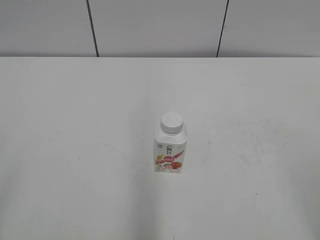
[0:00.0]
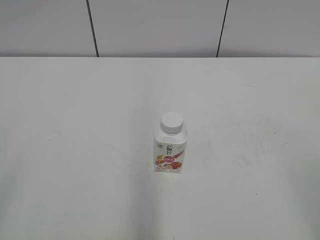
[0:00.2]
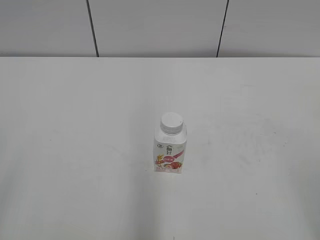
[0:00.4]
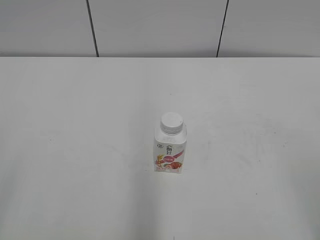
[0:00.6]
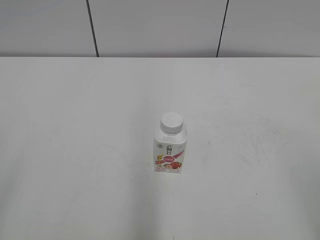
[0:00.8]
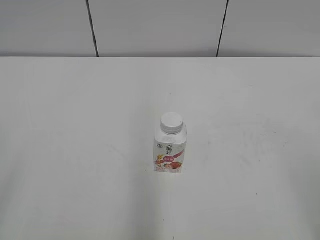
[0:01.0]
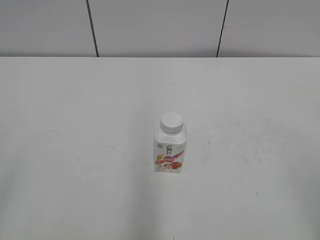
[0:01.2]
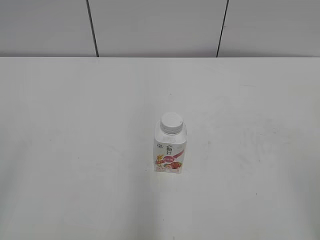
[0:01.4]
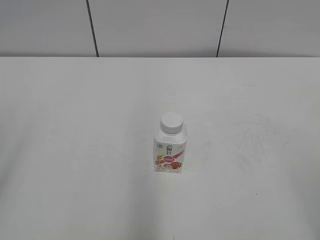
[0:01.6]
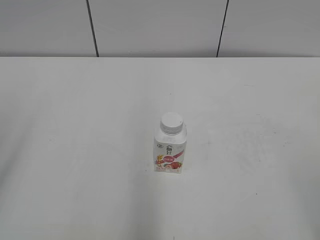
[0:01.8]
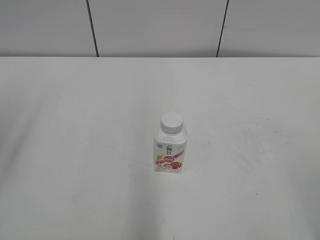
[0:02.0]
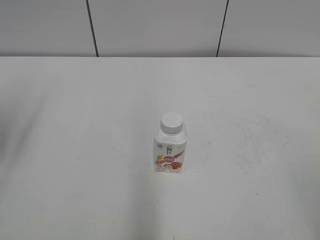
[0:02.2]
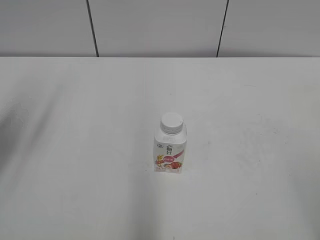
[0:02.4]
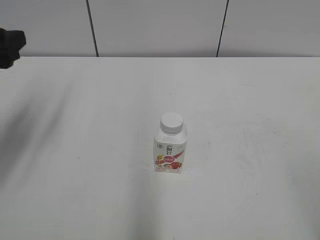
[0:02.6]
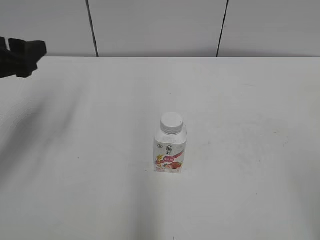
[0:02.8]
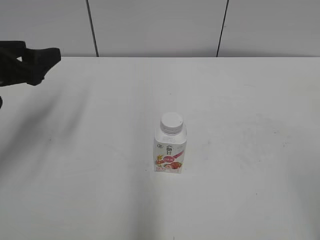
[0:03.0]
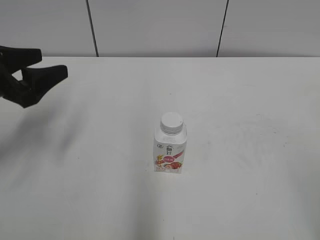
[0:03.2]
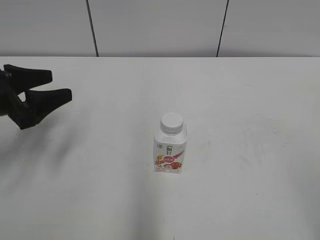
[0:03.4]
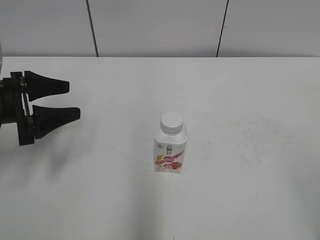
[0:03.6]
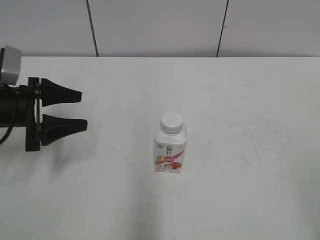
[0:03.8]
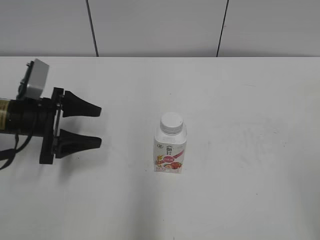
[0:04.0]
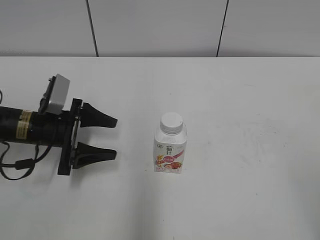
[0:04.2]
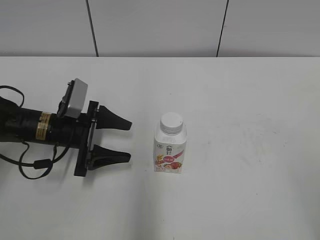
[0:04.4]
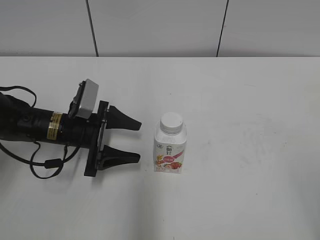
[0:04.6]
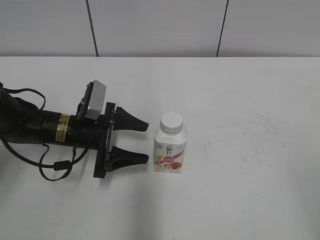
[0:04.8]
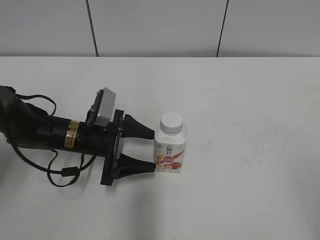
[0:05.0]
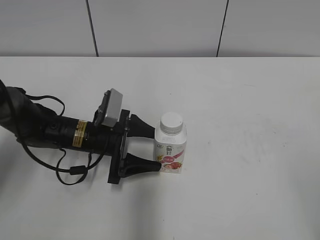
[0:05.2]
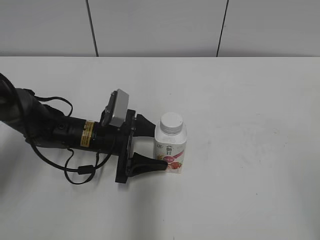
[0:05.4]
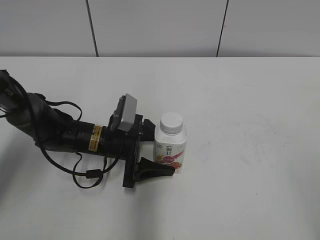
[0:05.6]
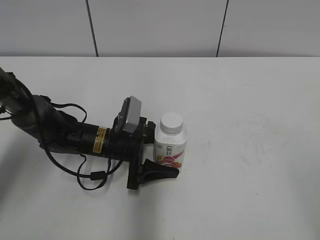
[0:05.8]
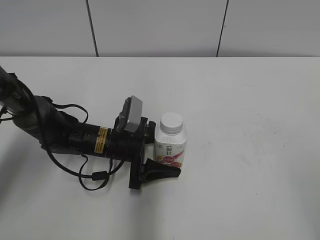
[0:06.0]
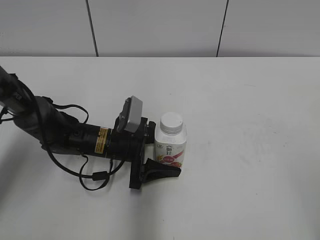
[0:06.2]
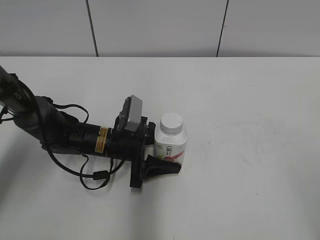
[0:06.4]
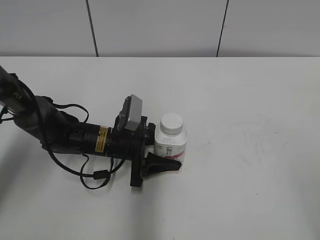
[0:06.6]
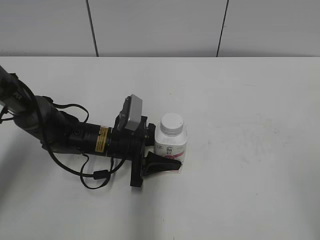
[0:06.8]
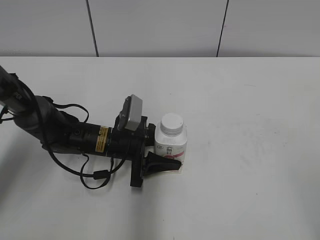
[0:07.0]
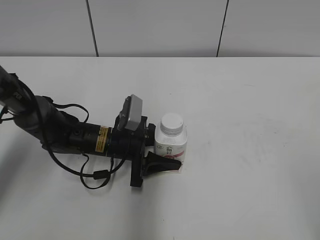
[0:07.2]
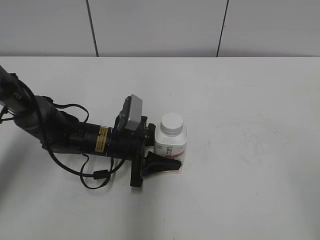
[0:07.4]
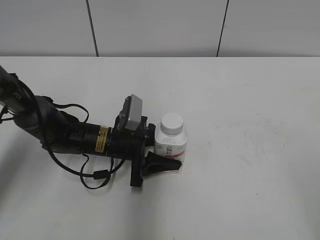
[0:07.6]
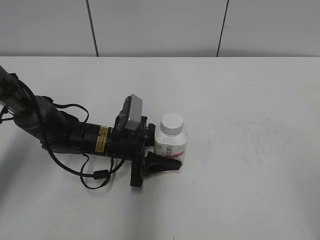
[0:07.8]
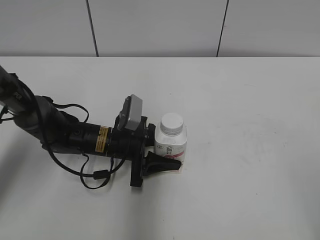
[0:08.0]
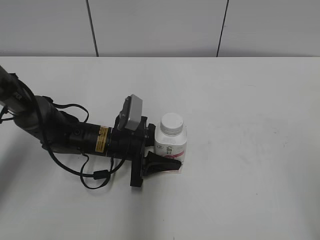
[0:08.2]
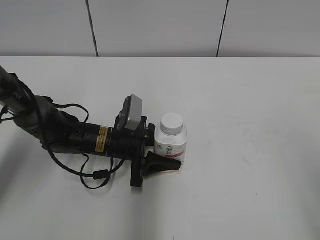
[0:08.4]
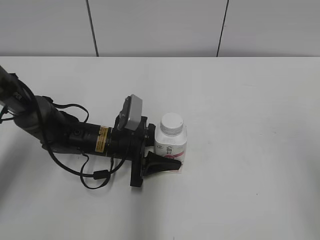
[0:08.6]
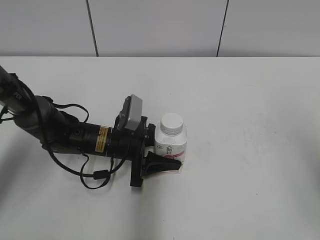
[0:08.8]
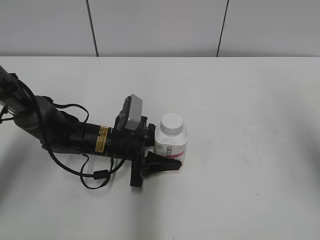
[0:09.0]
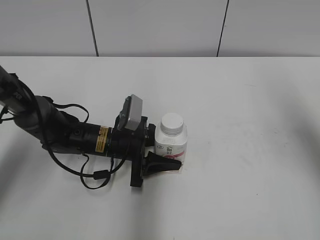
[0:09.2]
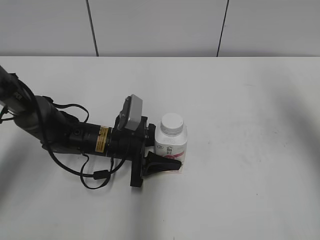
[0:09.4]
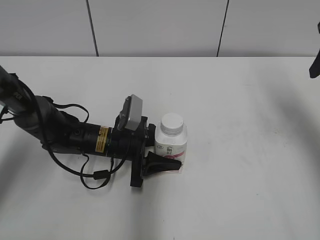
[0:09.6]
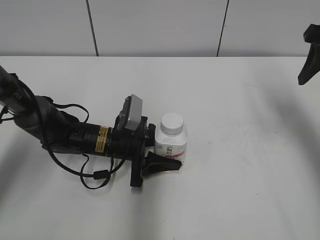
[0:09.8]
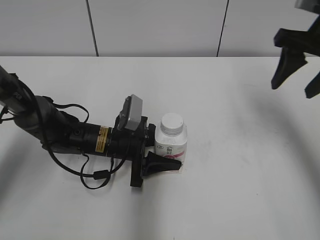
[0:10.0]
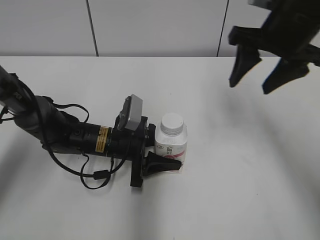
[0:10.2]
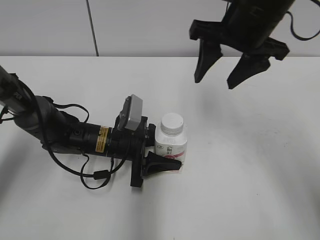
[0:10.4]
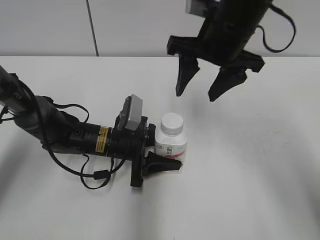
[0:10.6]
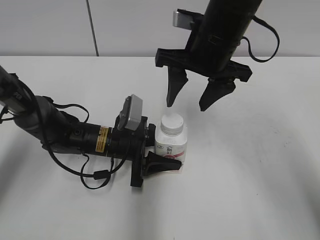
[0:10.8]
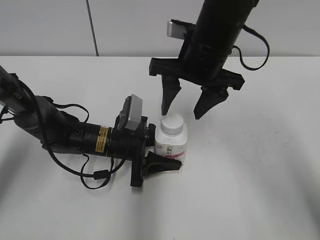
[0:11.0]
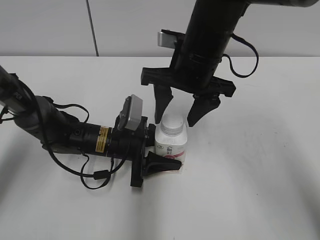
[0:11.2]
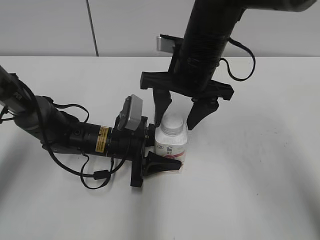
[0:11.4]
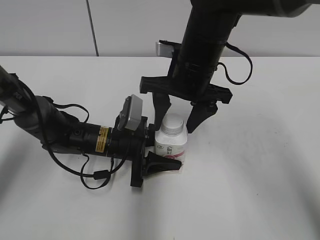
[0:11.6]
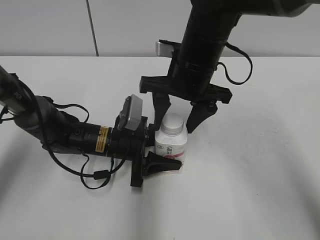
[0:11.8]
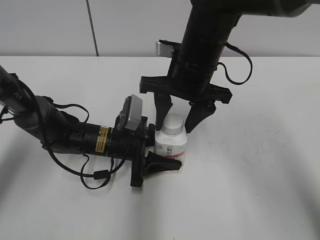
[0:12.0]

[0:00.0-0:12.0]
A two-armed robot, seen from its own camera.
Step, 0:00.0 to 0:07.0: Grab the Yili Changqing with the left hand.
0:01.6 to 0:03.0: The left gripper is displaced forward by approximately 25 cm.
0:03.0 to 0:04.4: The left gripper travels downward and to the right by about 15 cm.
0:04.4 to 0:06.0: The left gripper travels to the right by roughly 10 cm.
0:06.0 to 0:07.6: The left gripper closes.
0:07.6 to 0:09.0: The right gripper is displaced forward by approximately 15 cm.
0:09.0 to 0:10.4: The right gripper travels forward and to the left by roughly 25 cm.
0:10.4 to 0:12.0: The right gripper is displaced to the left and downward by approximately 10 cm.

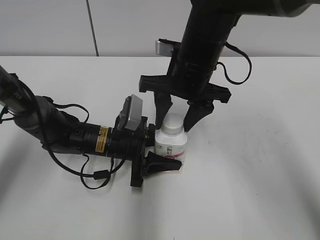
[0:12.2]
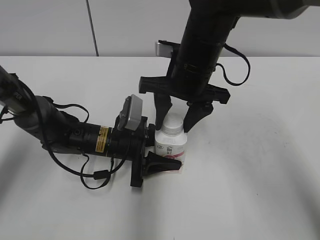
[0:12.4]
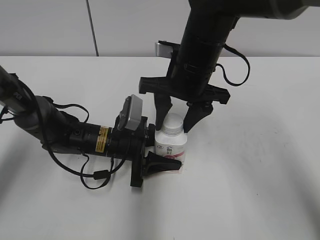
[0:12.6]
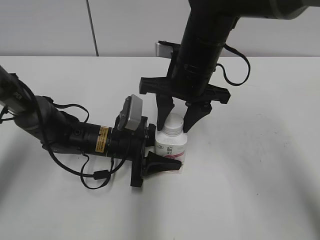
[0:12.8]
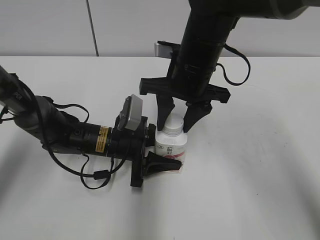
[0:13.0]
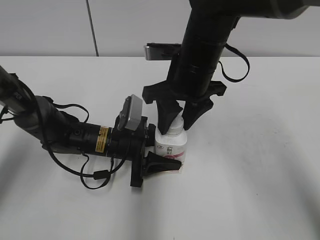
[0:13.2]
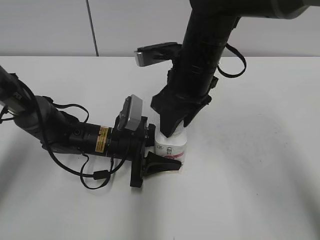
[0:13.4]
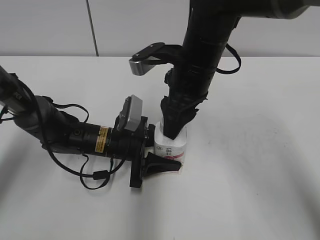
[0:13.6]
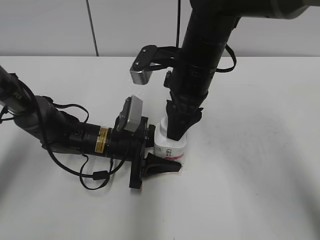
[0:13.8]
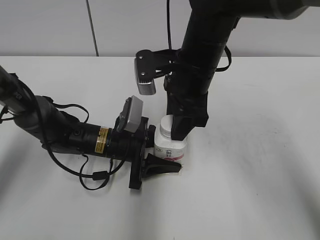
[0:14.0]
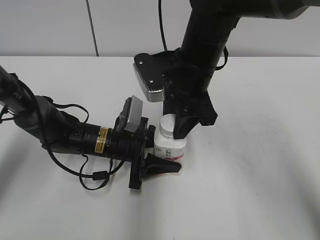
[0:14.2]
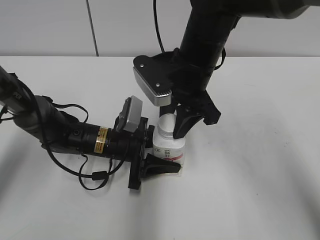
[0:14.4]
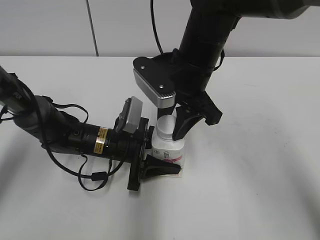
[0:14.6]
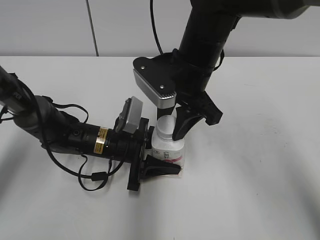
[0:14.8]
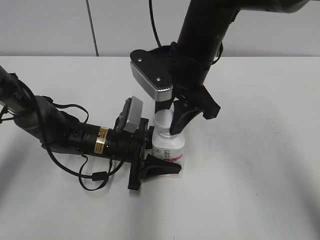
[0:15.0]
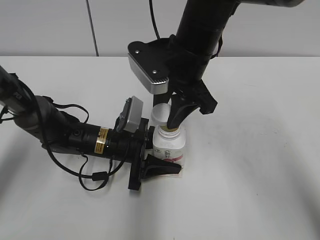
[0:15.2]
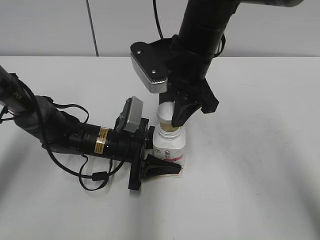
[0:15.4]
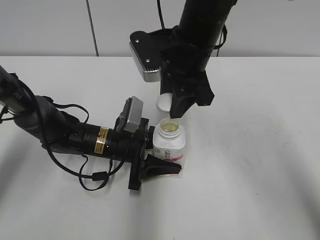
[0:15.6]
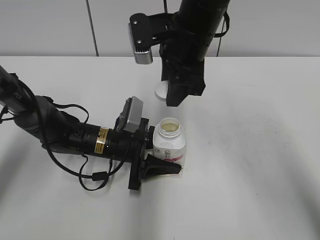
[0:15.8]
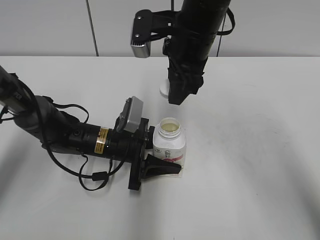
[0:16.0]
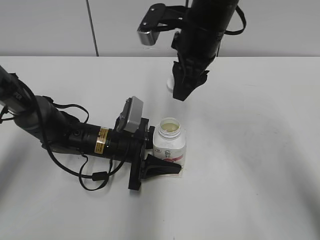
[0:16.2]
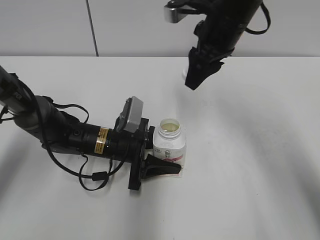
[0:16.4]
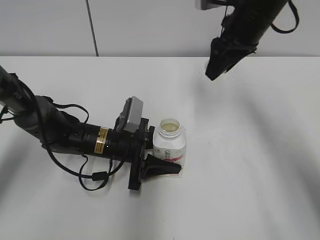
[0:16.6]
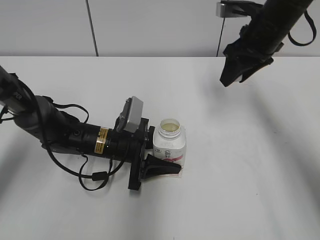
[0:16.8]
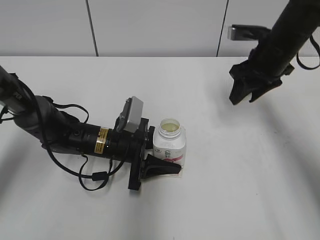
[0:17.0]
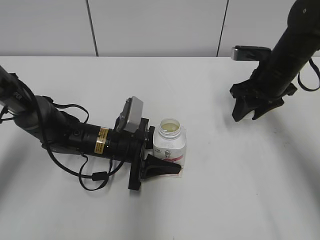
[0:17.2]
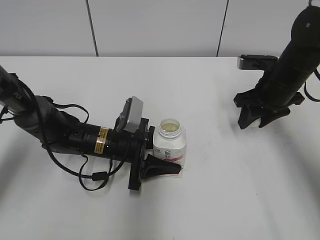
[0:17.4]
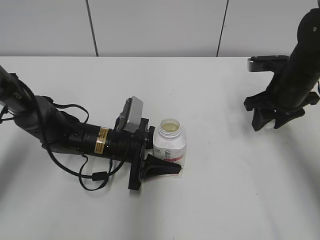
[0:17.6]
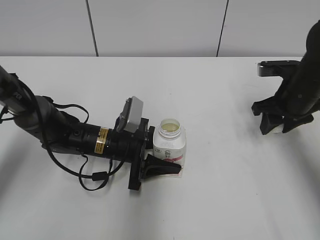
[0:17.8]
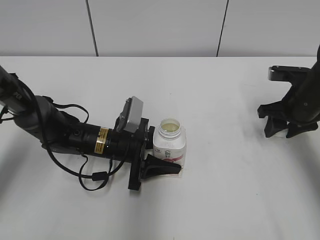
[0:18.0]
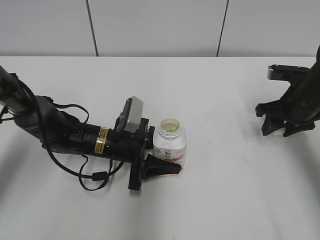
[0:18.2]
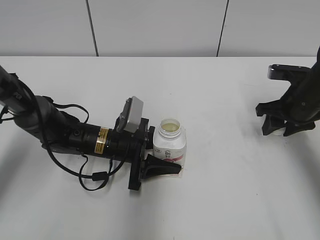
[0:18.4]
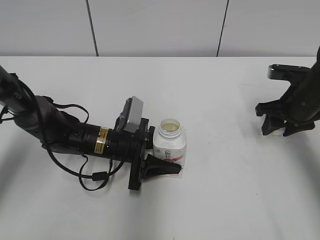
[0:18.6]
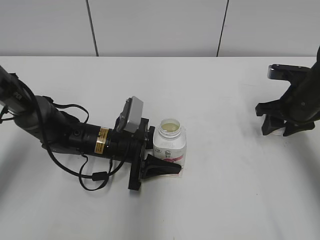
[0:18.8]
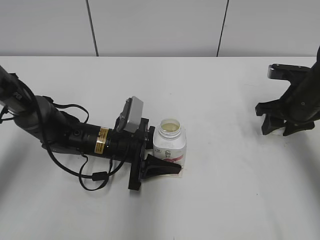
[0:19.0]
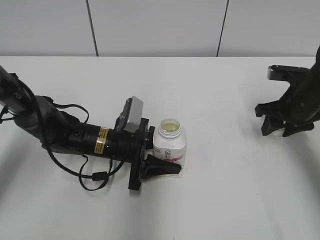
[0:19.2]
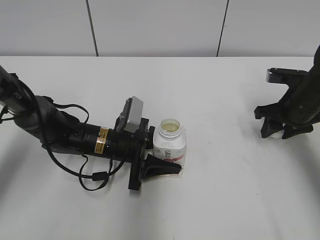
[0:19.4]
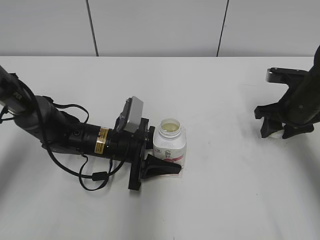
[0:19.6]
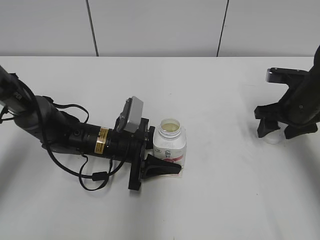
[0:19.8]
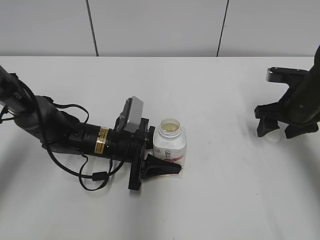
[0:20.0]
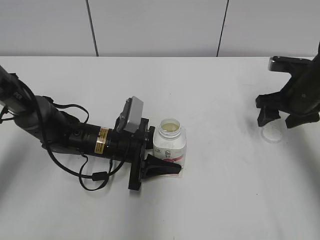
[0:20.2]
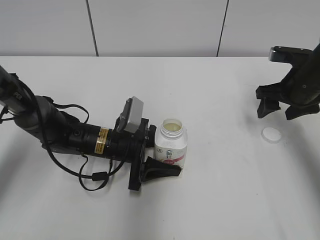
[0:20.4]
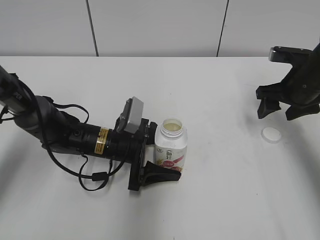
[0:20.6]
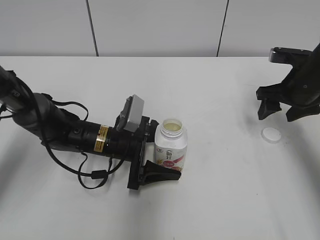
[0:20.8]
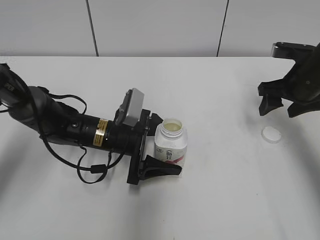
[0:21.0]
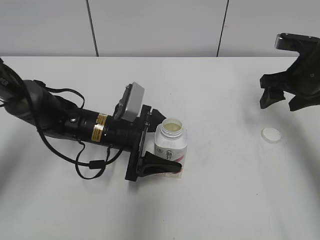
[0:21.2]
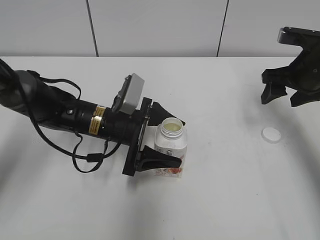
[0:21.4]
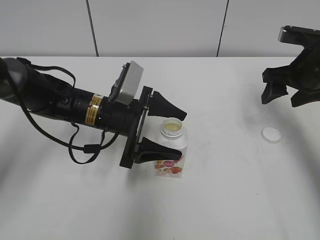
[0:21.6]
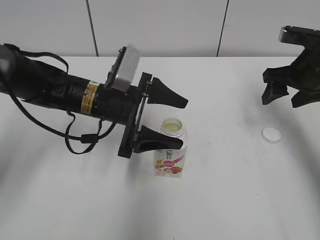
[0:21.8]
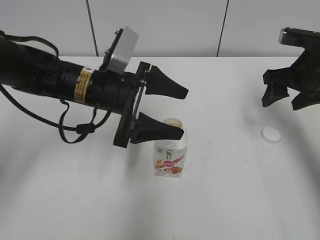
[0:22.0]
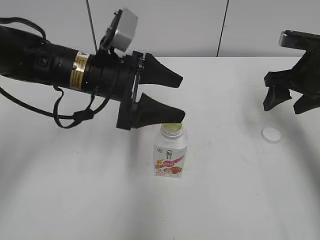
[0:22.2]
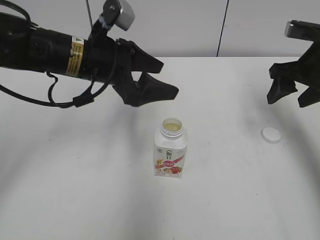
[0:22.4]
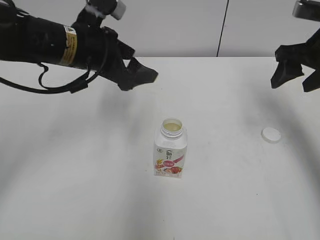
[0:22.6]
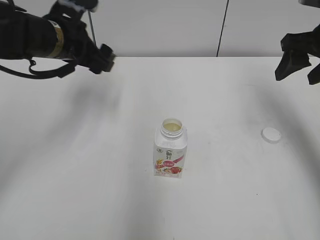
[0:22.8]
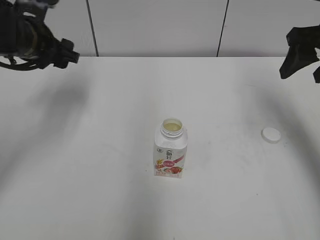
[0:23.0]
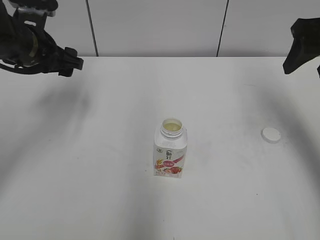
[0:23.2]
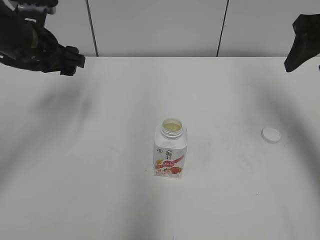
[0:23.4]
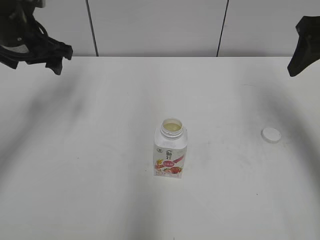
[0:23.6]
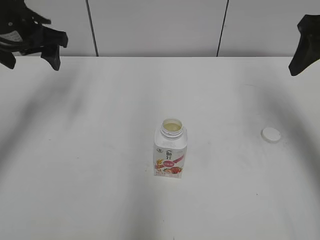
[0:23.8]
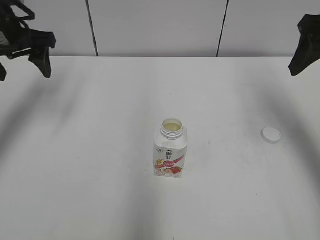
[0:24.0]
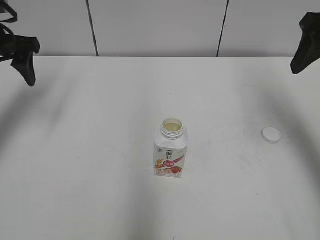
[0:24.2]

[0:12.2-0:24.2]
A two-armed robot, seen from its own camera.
Step, 0:15.6 to 0:19.6: Place the bottle cap on the right.
Step, 0:20.0 to 0:21.2: Place the Yili Changqing with the left hand.
0:15.2 to 0:16.6: The right gripper is displaced to the right and forward by about 10 cm.
0:16.6 to 0:18.2: The right gripper heads to the right and downward, covering roughly 20 cm.
0:18.2 to 0:19.8: The right gripper opens up.
0:19.8 to 0:21.2: The right gripper moves upward, roughly 5 cm. The left gripper opens.
0:21.2 to 0:22.6: The left gripper moves upward, some 15 cm; the right gripper travels upward by approximately 5 cm.
0:22.6 to 0:24.2: The right gripper goes roughly 5 cm upward. The left gripper moves to the left, some 15 cm.
